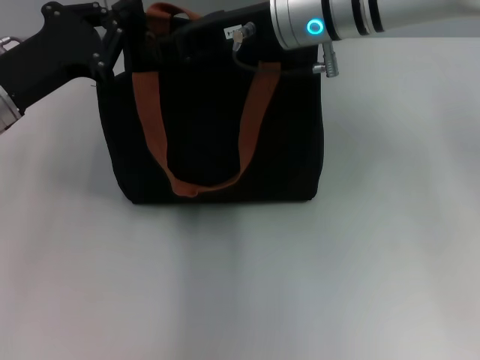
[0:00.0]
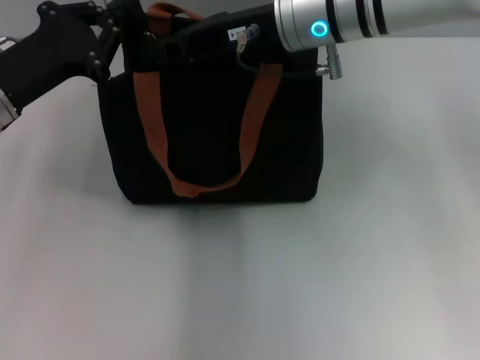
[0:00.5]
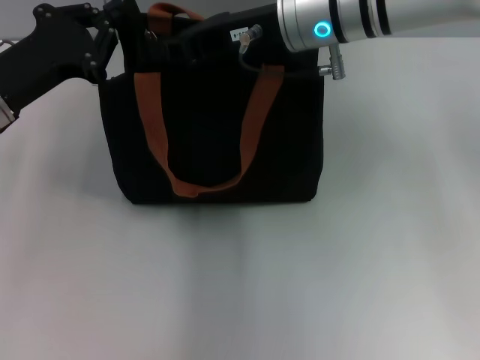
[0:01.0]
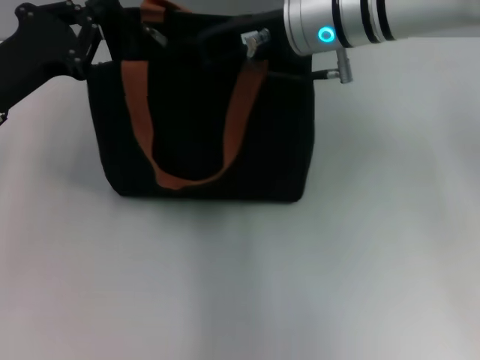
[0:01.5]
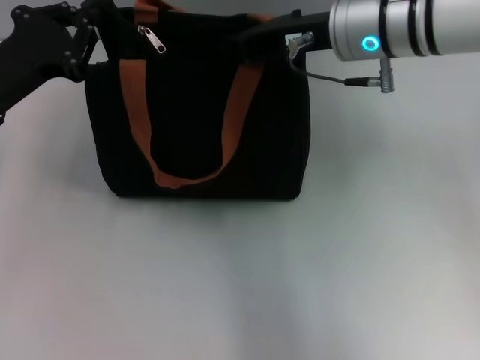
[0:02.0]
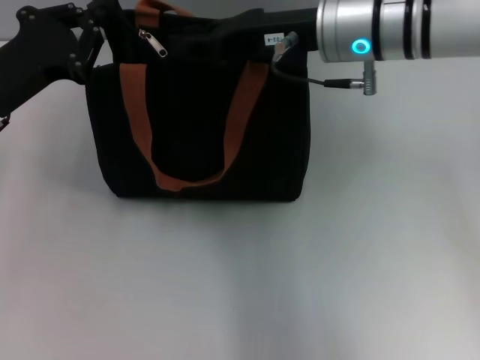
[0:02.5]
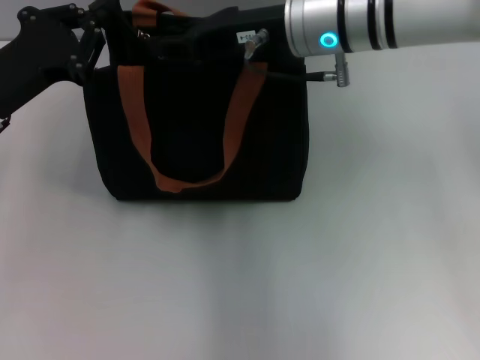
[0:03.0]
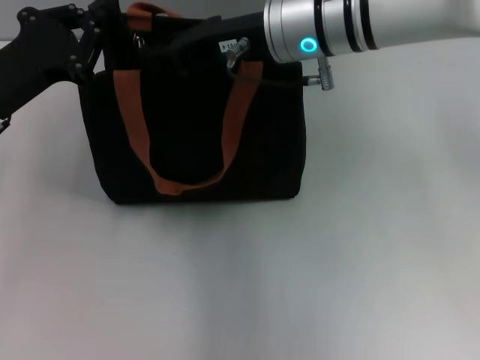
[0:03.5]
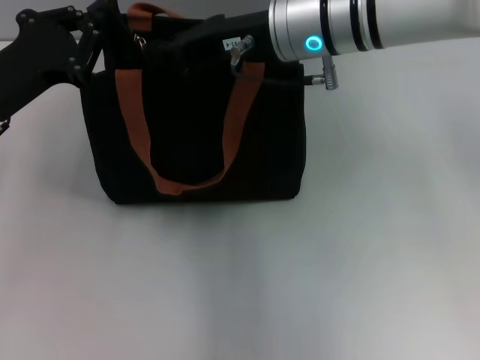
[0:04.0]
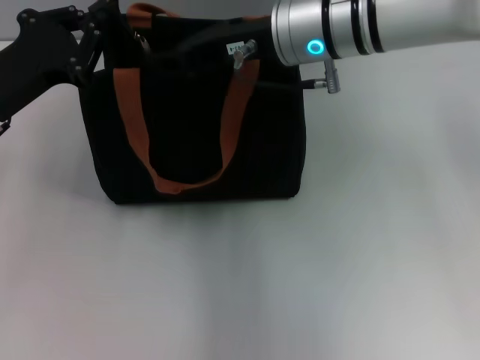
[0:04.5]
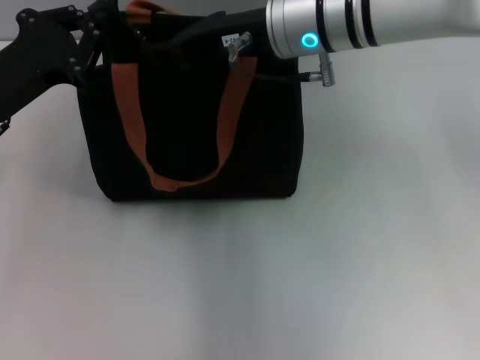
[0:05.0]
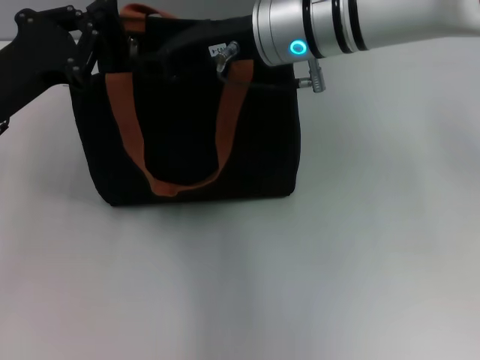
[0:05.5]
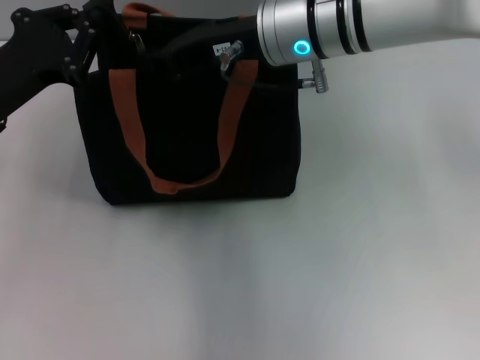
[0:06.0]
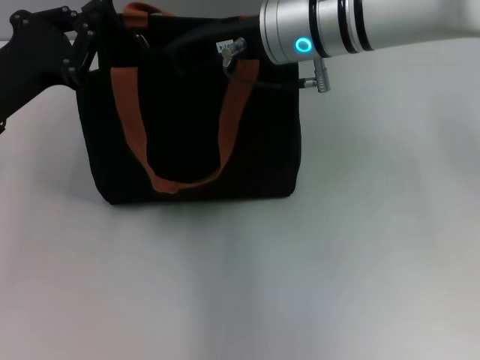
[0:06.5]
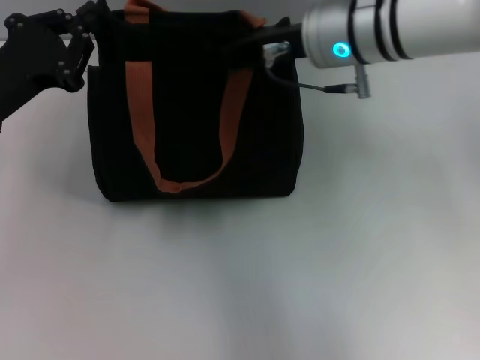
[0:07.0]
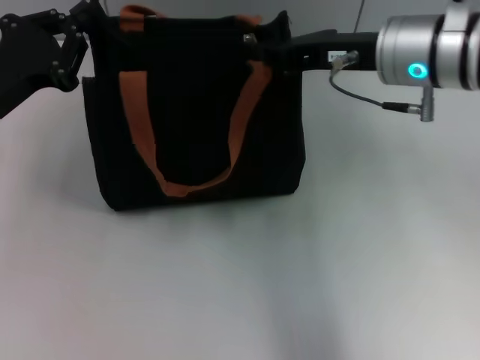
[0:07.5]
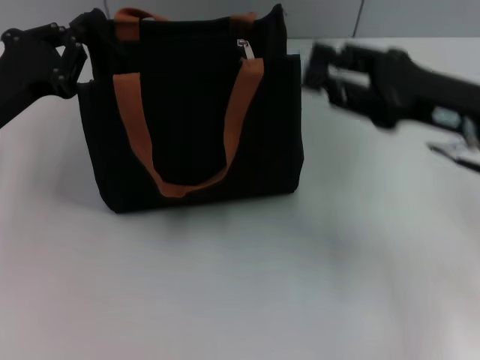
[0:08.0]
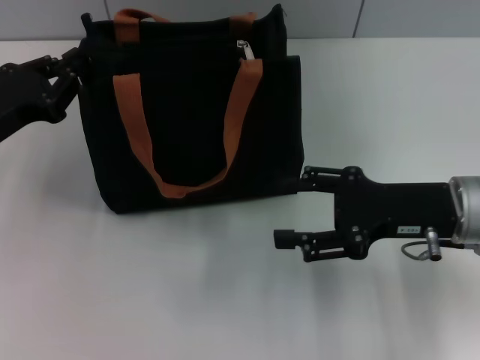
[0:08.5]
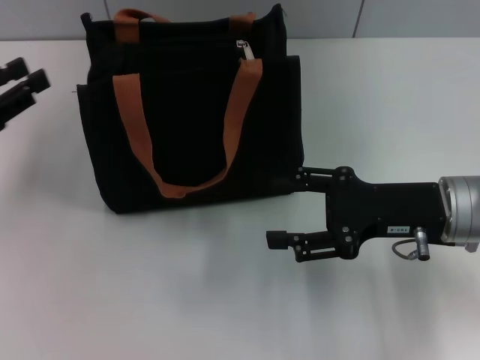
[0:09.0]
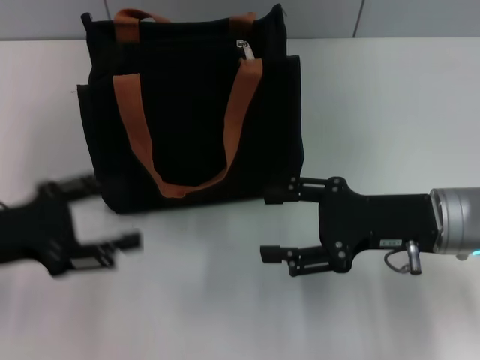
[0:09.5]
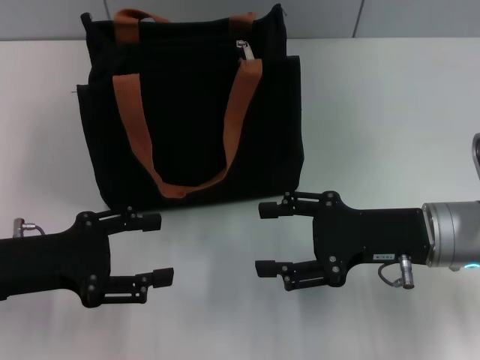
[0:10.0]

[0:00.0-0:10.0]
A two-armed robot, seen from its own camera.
Step, 0:00.0 to 0:07.5: Pull up the zipper with your right hand.
Step, 0:08.0 to 0:08.5: Grab the zipper with your left hand.
0:00.0 to 0:02.0: The right gripper changes place by approximately 5 cm.
0:02.0 to 0:04.0: The right gripper opens, then closes again.
0:04.0 to 0:06.0: The two grippers keep their place.
0:06.0 to 0:08.0: The right gripper goes approximately 20 cm to the right and backward.
0:08.0 to 0:10.0: The left gripper moves backward, roughly 10 cm, and opens, while the right gripper travels downward by about 5 cm, and opens its fingers.
